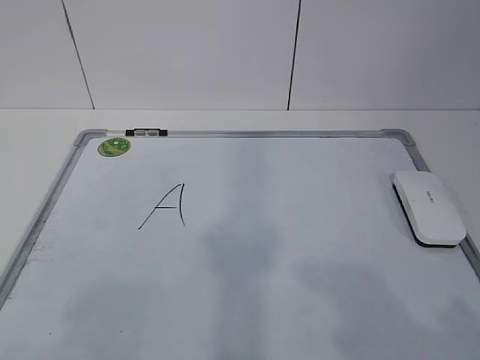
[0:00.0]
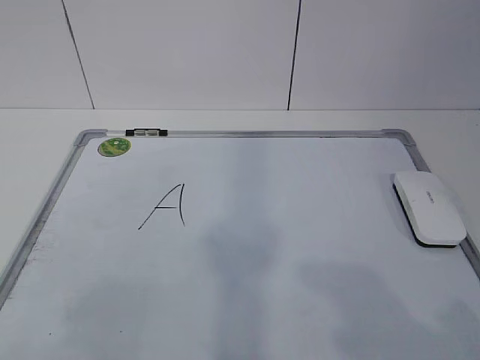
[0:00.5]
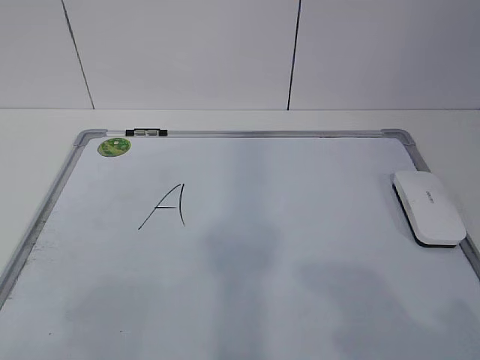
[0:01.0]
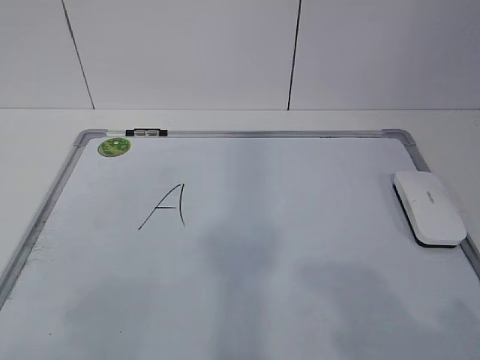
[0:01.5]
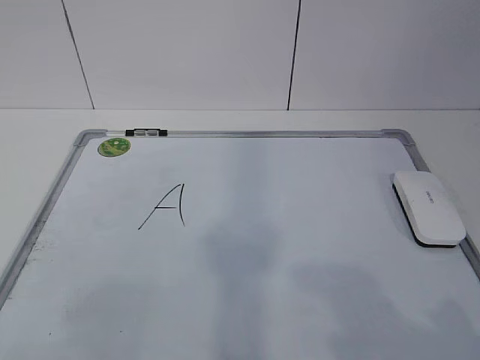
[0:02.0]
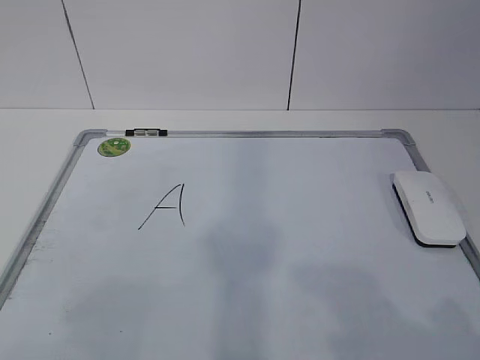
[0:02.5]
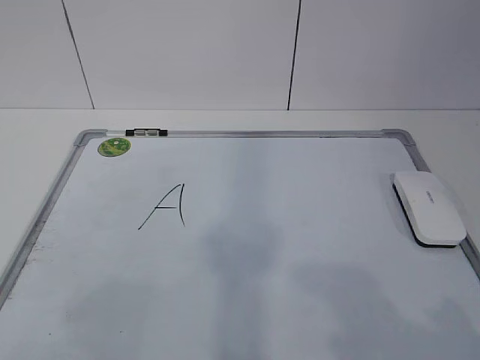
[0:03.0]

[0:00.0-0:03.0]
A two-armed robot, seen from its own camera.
Task of the whole recording: pick up the eraser on the blackboard and erase the letter "a".
0:00.0 to 0:03.0: Neither gripper changes place.
